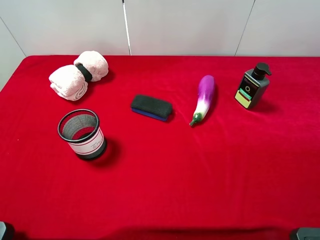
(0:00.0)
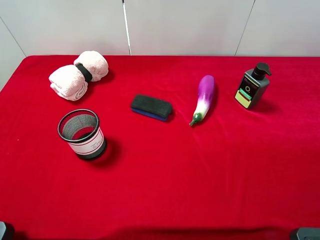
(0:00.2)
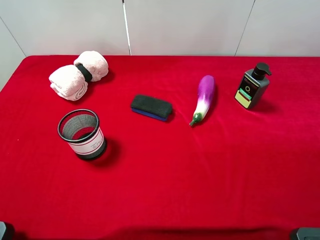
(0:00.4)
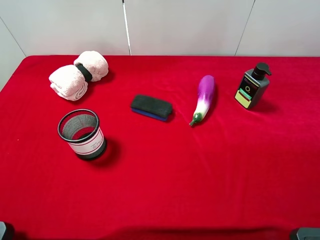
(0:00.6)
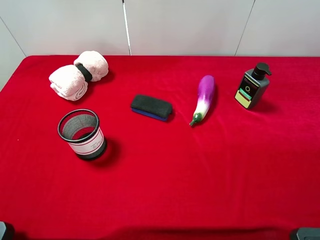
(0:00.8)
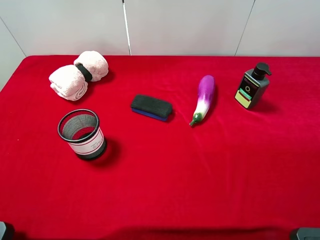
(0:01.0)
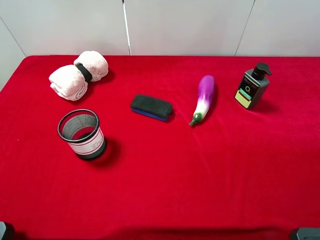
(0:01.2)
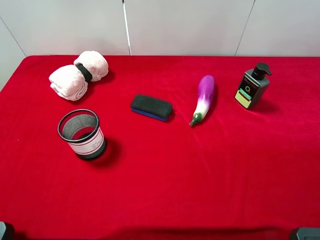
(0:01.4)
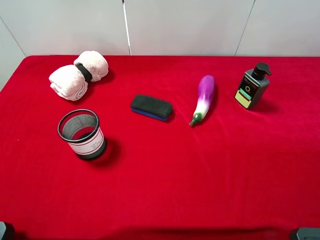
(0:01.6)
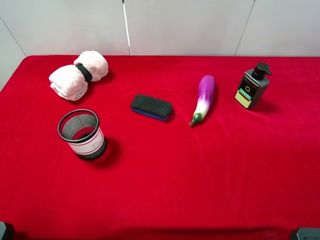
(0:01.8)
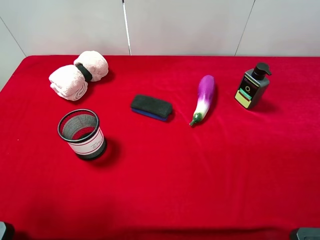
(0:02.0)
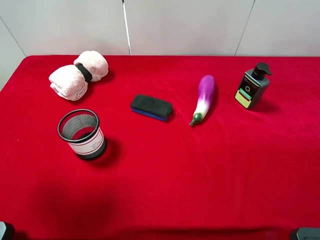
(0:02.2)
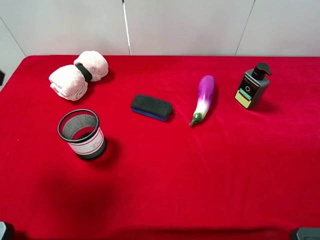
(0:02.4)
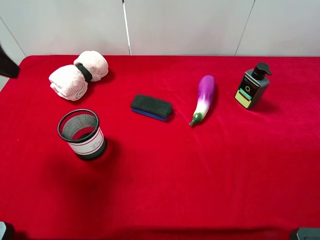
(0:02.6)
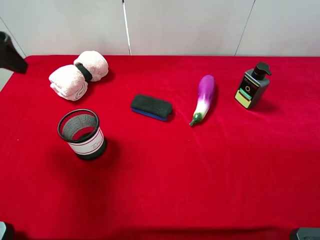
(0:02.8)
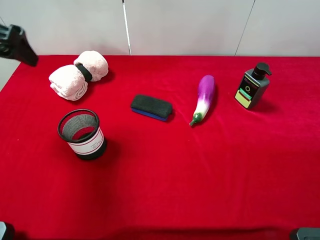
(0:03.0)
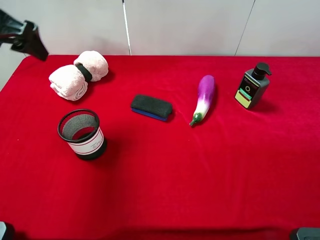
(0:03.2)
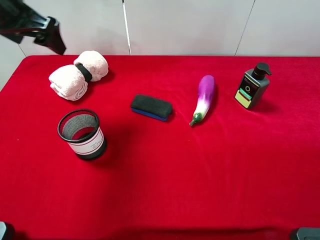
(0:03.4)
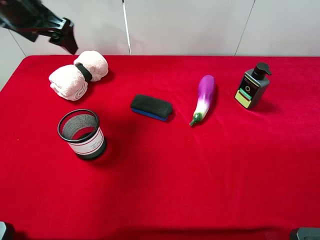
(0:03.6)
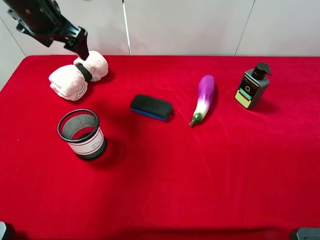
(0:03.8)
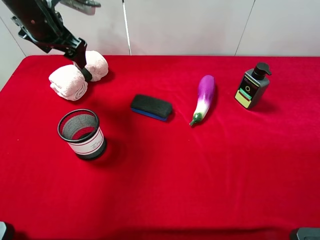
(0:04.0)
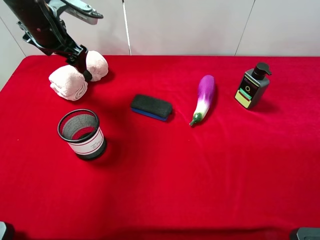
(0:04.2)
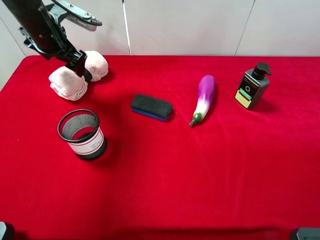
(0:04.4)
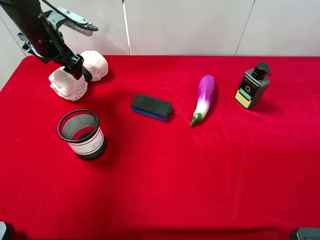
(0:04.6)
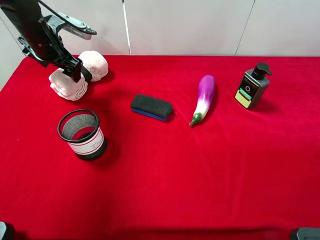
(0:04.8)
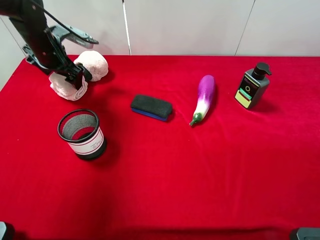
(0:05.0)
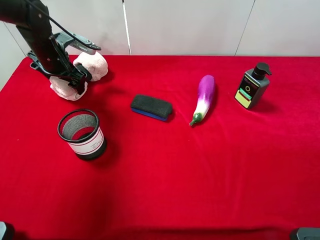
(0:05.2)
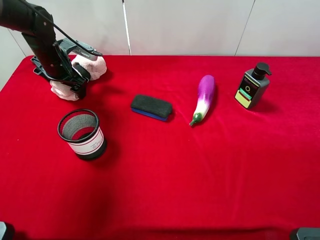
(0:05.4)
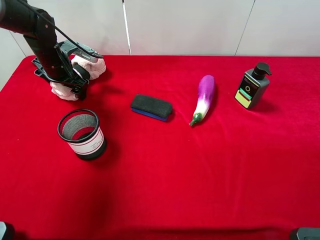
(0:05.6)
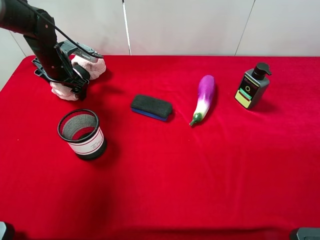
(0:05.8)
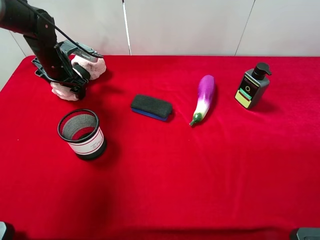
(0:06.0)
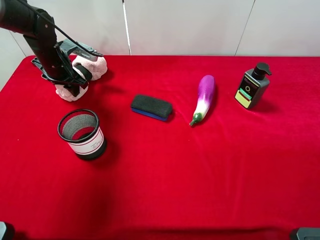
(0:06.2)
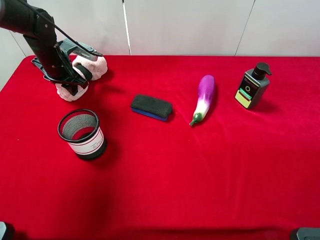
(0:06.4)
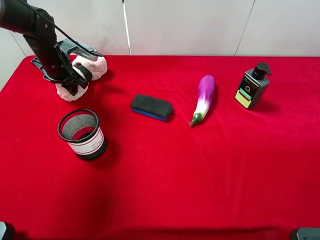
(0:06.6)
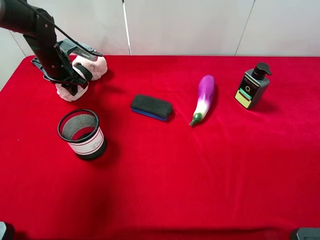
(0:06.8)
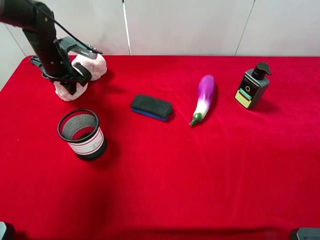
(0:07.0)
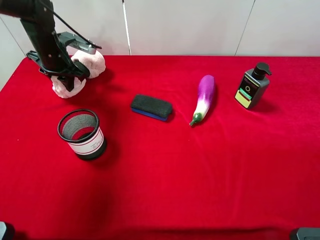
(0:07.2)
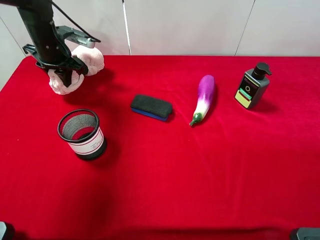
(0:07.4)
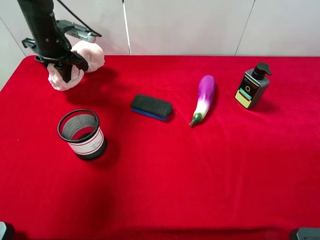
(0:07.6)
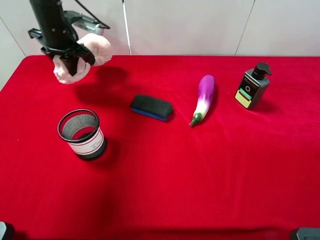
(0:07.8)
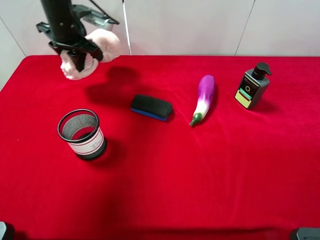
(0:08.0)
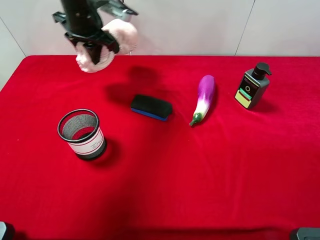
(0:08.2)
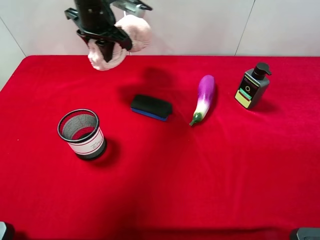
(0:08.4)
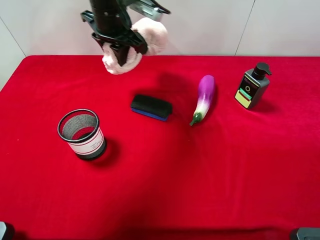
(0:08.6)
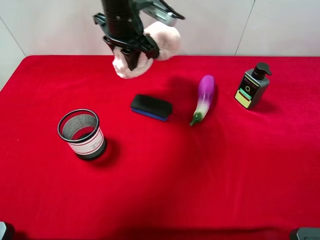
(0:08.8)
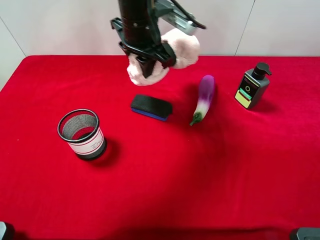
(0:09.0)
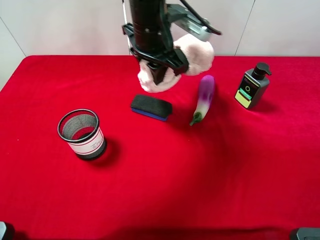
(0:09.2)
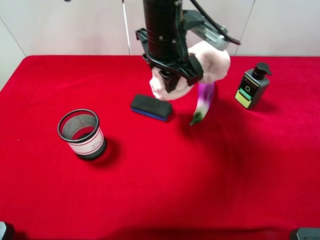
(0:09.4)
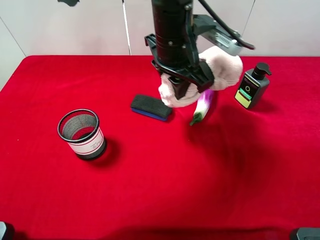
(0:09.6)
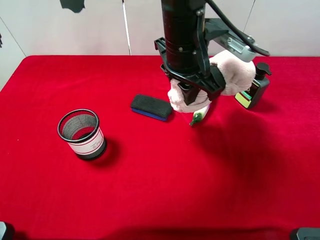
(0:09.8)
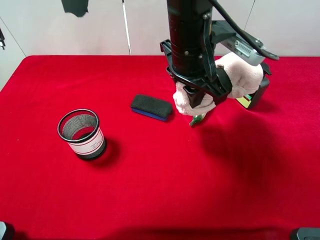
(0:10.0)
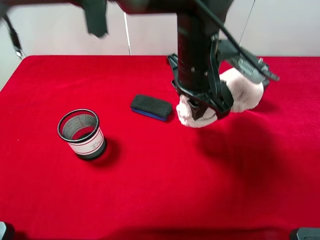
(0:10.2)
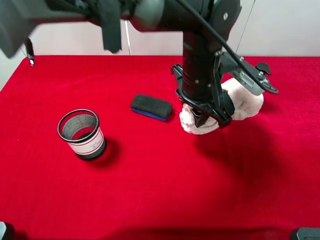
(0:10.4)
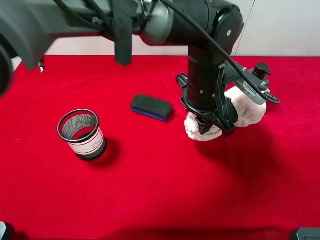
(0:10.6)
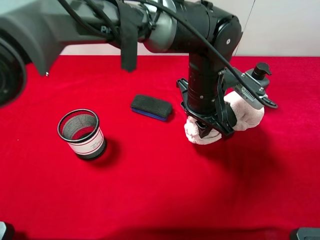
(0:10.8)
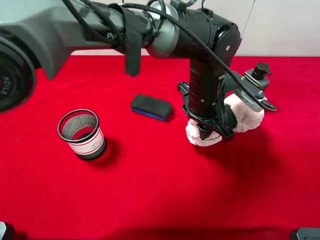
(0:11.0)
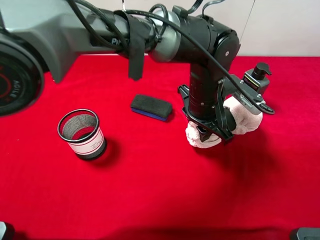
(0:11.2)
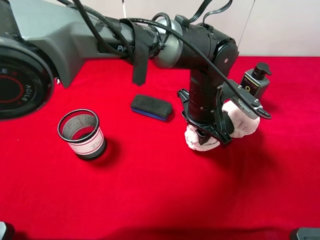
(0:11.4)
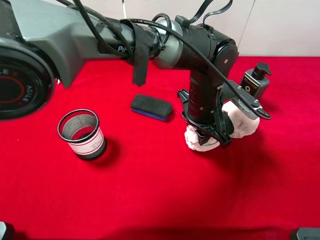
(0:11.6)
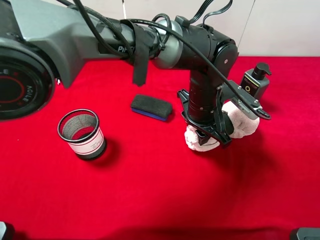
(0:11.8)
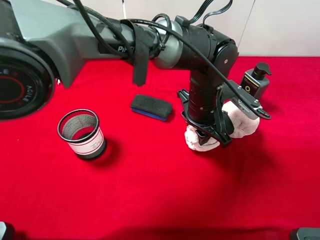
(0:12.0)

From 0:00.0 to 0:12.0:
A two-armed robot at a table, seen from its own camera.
Task of the whole recording: the gripper move the object.
Step, from 0:00.0 to 0:06.6: Grasp the pink towel with the left gripper.
From 0:01.6 to 0:03.0: The left gripper shifts about 25 cm forward.
From 0:03.0 to 0:04.4: The left gripper heads forward and downward, covering roughly 15 cm.
From 0:04.4 to 0:06.0: The left gripper travels downward by roughly 10 cm.
From 0:06.0 to 0:07.6: The left gripper moves upward, about 5 cm, and closes.
From 0:07.6 to 0:09.0: The left gripper heads to the right, covering some 25 cm.
From 0:09.0 to 0:10.4: The left gripper goes about 15 cm to the right, backward and downward.
From 0:10.4 to 0:12.0: The left gripper travels downward by about 5 cm.

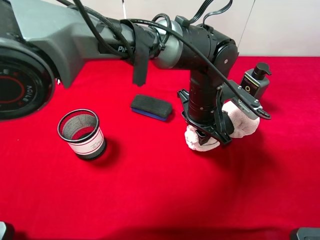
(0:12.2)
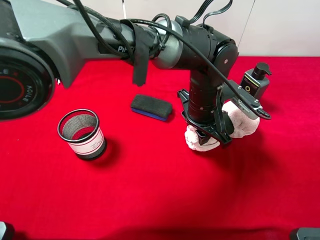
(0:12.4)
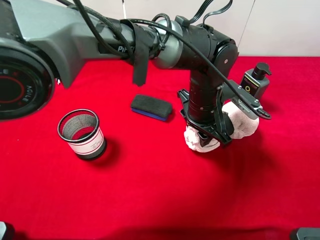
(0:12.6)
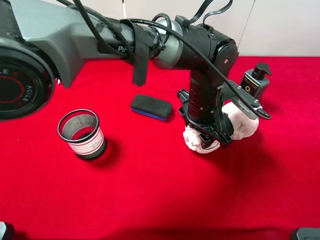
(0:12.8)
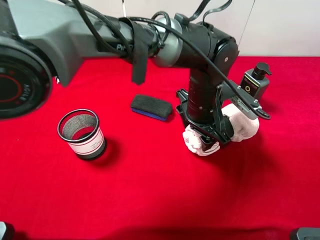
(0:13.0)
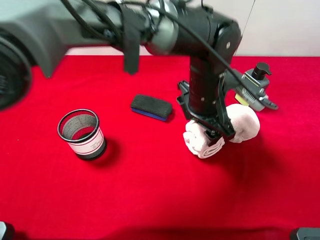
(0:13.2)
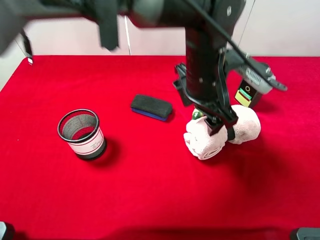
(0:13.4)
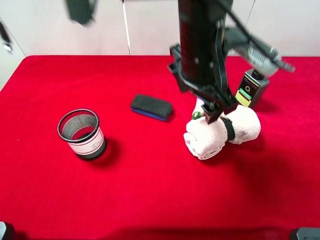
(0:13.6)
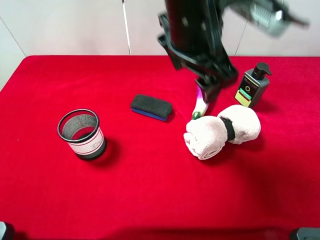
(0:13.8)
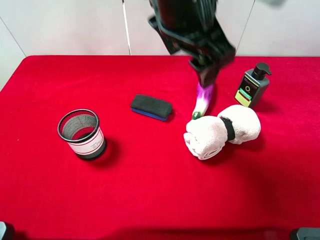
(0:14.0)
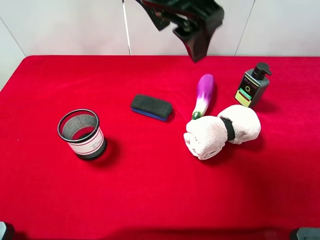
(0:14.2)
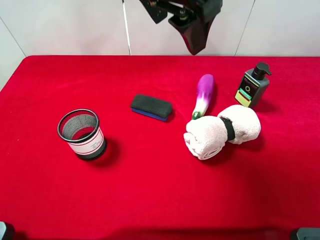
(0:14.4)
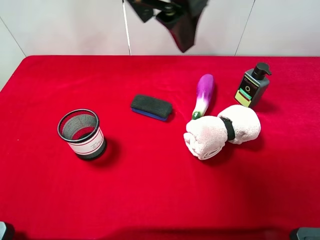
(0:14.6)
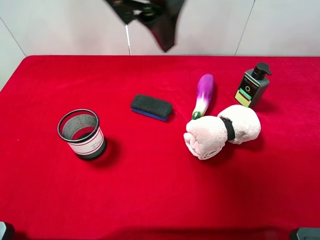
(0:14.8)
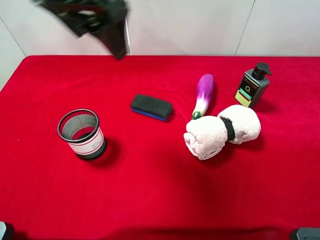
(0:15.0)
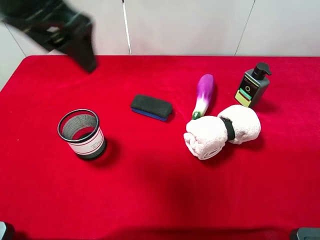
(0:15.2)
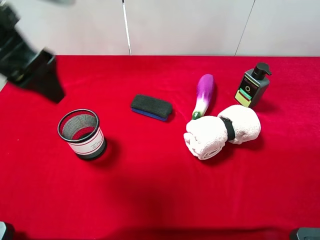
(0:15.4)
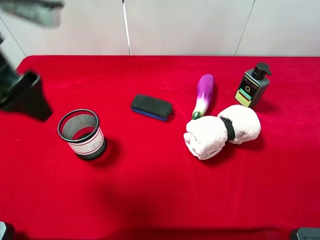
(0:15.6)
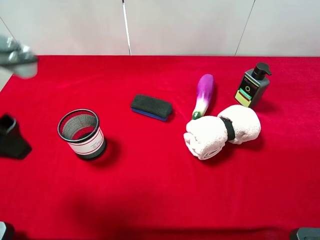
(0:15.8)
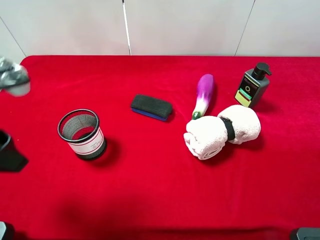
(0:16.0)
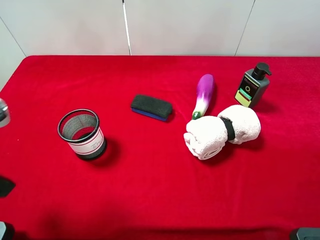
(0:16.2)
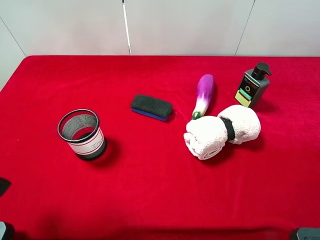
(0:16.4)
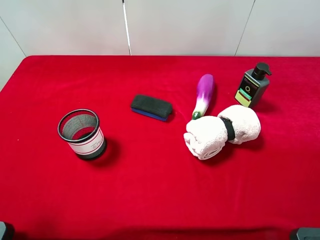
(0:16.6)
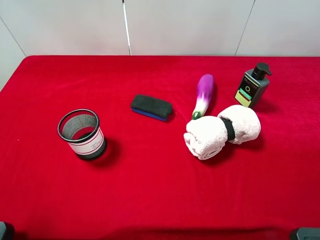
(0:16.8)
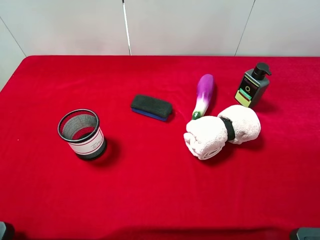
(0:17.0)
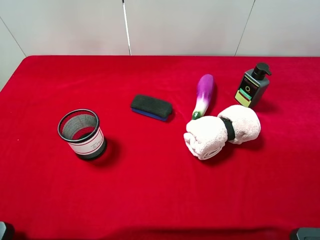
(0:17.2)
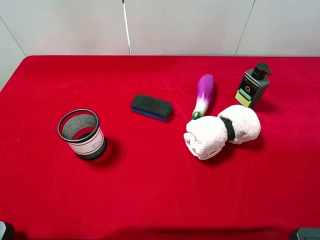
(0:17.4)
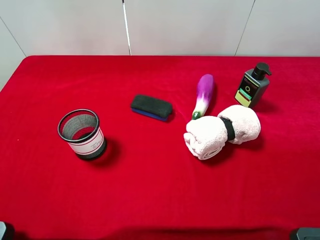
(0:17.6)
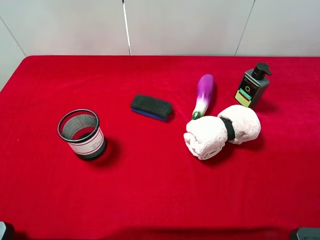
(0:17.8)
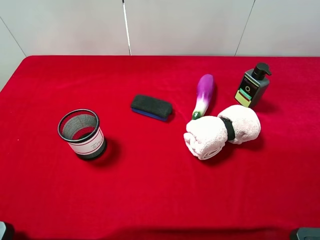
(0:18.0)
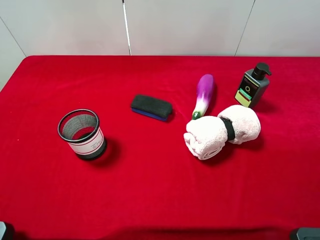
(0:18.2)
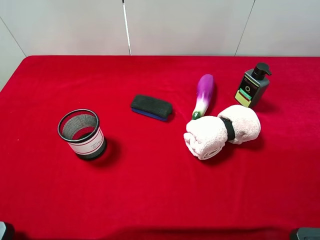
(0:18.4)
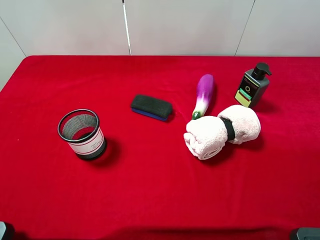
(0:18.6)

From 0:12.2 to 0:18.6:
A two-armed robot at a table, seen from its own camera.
Task of the whole recording: the gripper move the object.
From 0:12.2 to 0:13.8: The left gripper heads upward, covering roughly 20 cm, and opens.
From 0:13.8 to 0:15.4: The left gripper shifts some 25 cm to the left.
From 0:15.4 to 0:17.0: The left gripper shifts roughly 20 cm backward and to the left.
